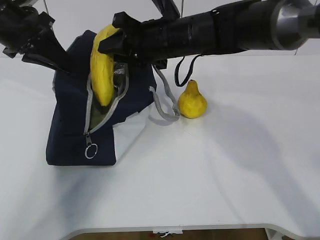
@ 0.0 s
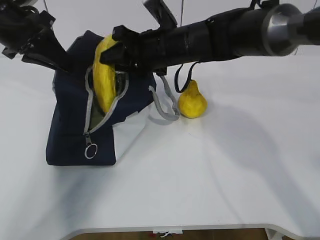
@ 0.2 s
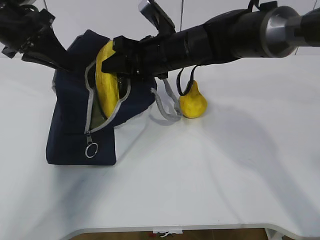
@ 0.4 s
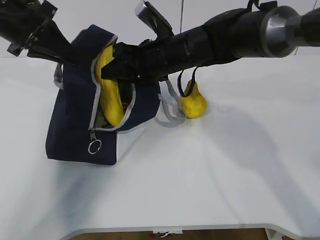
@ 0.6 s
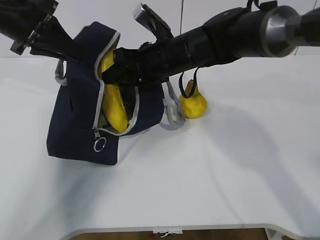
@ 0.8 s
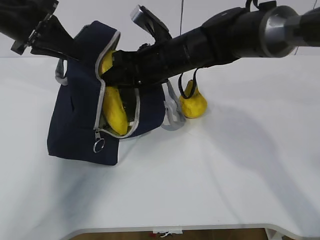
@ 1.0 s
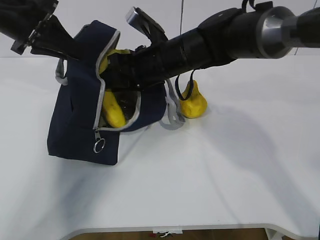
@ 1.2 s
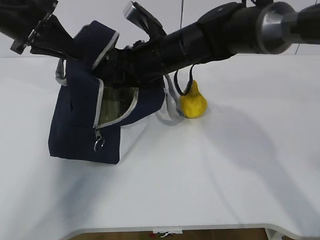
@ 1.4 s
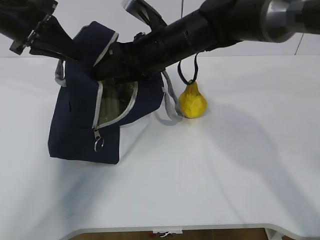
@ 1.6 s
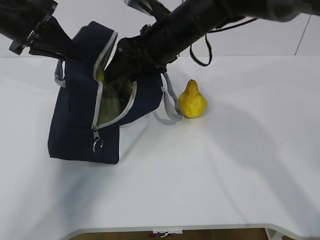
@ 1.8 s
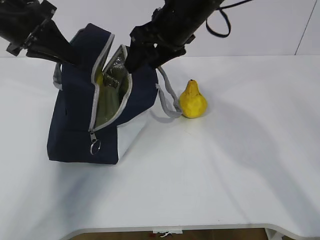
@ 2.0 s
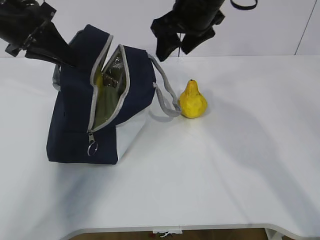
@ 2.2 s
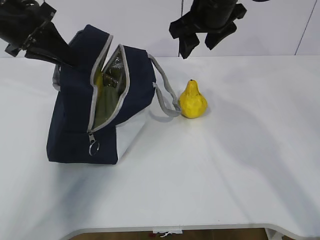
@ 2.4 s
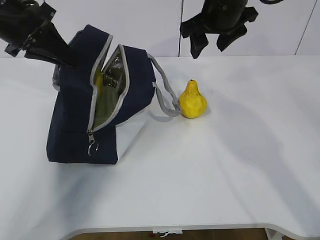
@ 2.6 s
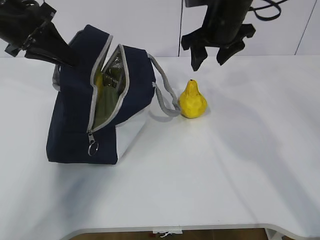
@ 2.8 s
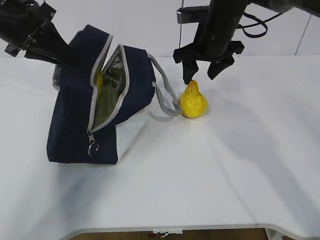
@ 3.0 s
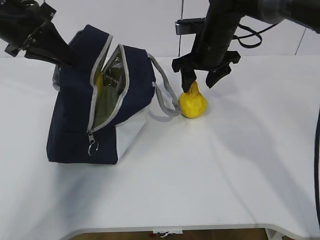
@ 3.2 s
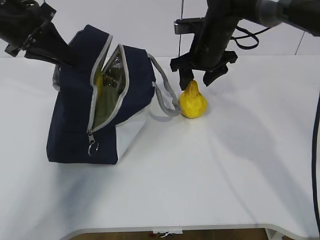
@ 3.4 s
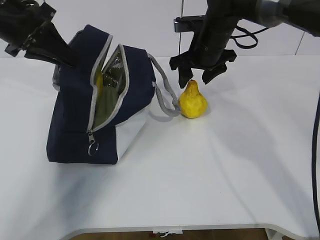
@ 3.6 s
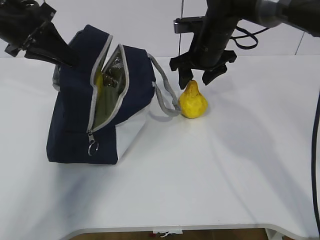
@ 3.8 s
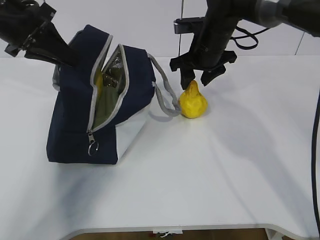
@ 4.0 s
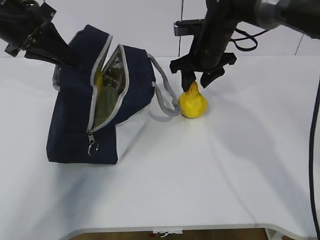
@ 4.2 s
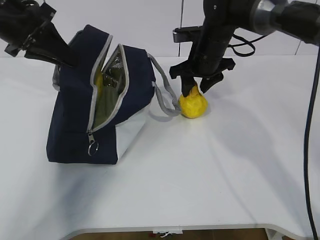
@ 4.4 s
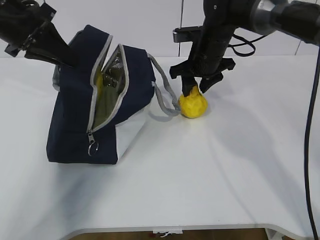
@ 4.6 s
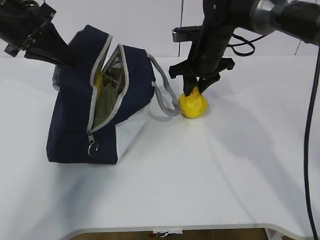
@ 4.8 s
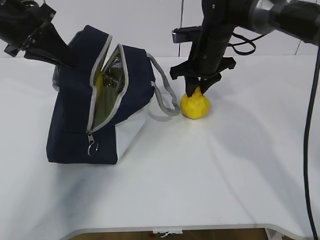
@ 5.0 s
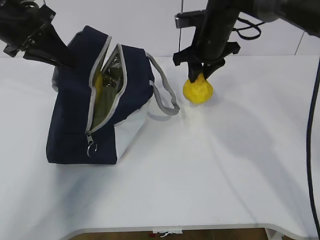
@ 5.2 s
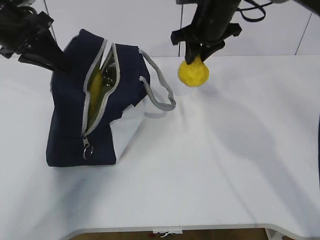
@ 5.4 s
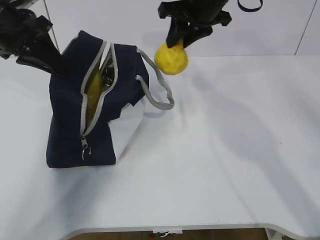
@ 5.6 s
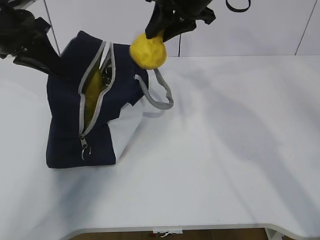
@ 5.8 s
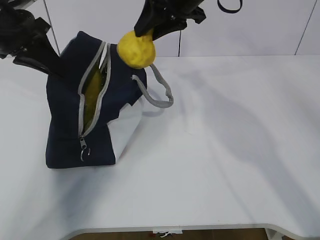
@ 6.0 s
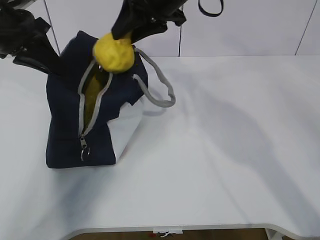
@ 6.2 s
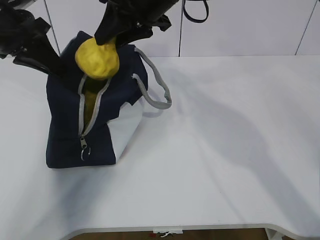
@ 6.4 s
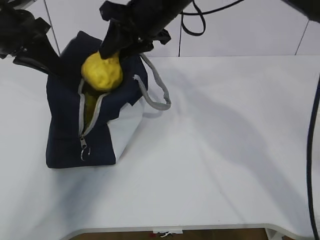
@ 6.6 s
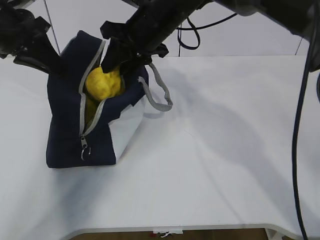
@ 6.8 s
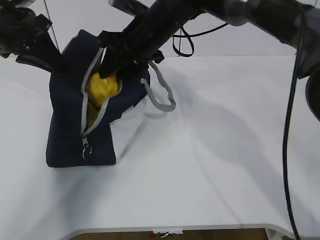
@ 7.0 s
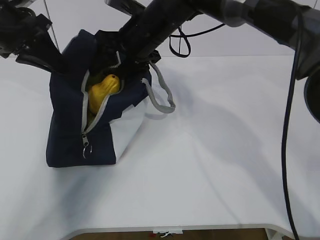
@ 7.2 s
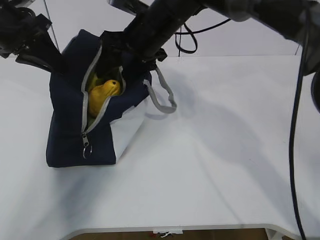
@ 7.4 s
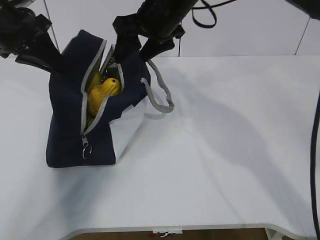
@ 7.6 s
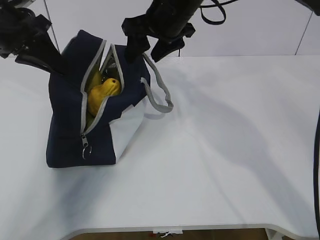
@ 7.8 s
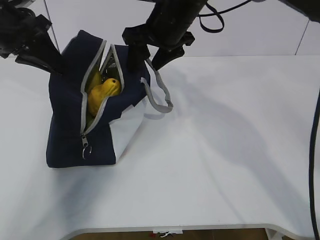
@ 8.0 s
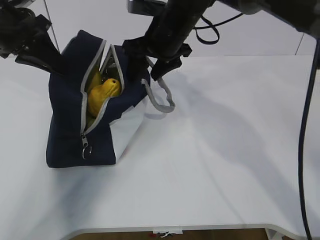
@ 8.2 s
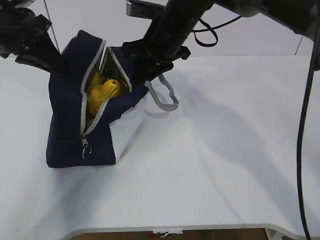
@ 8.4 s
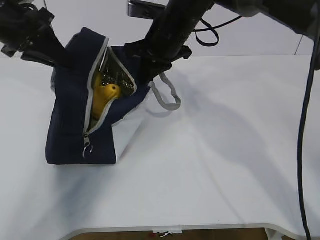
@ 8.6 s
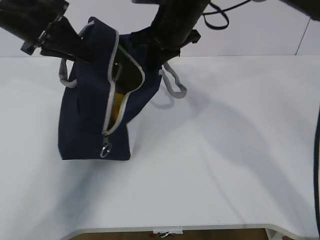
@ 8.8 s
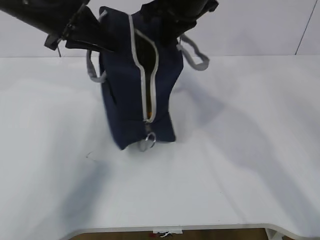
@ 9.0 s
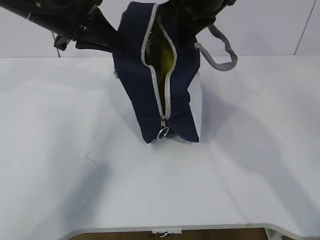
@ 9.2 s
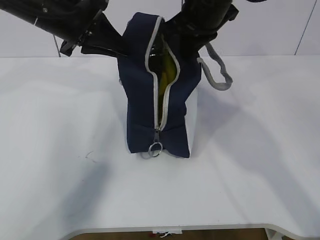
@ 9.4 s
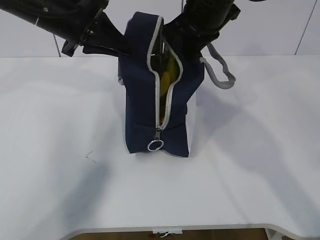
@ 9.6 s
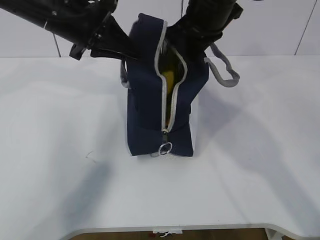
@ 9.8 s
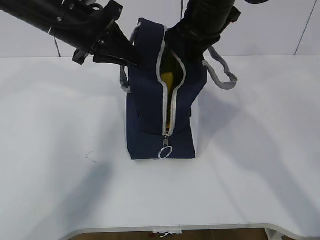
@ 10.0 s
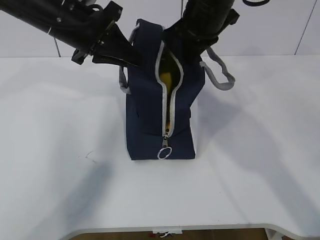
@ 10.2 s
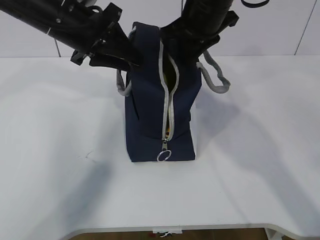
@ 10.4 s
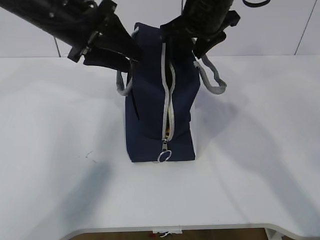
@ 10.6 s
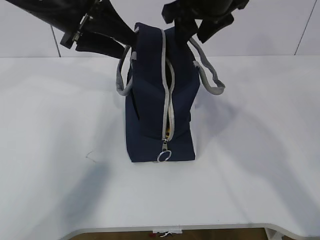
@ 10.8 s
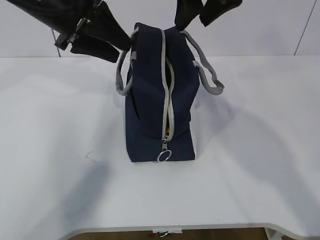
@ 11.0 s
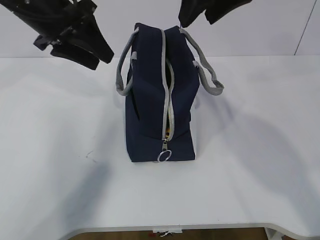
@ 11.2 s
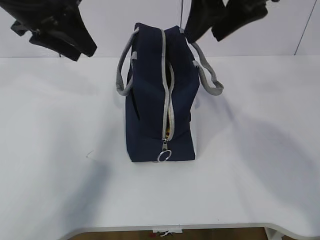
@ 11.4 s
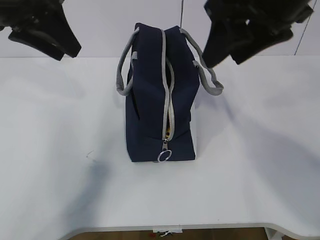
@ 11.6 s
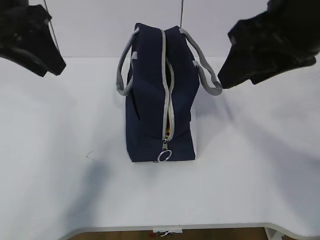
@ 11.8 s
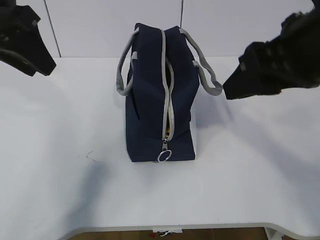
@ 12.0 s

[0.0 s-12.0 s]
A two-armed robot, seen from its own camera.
Step, 2.2 to 3.0 s: Grab the lunch bag with your right hand.
Step, 3.2 to 4.8 s: Move the lunch bag to the right.
0.0 to 1.6 s: The right gripper opens up.
1.6 to 3.0 s: The right gripper heads to the right and forward, covering some 10 cm.
3.0 to 4.4 s: The grippers move only a little.
4.4 to 6.0 s: The right gripper moves upward, about 15 cm.
6.0 to 7.6 s: The right gripper opens.
7.6 to 9.0 s: The right gripper shifts by about 5 cm, and closes up. Meanwhile the left gripper moves to the right, roughly 5 cm.
9.0 to 10.4 s: The grippers make only small movements.
10.4 to 12.0 s: The right gripper travels backward by approximately 20 cm, and opens. The left gripper heads to the left, backward and upward, covering approximately 10 cm.

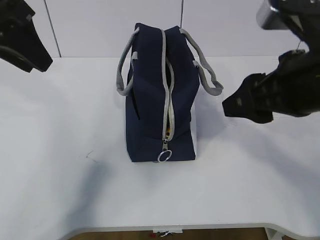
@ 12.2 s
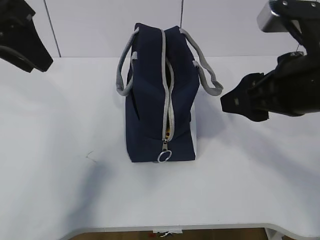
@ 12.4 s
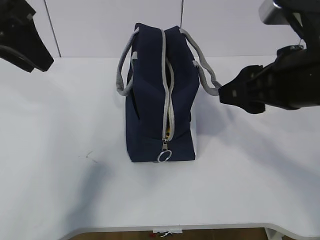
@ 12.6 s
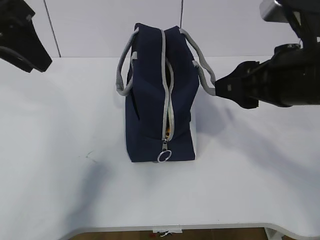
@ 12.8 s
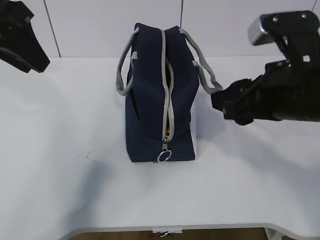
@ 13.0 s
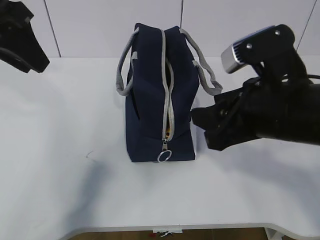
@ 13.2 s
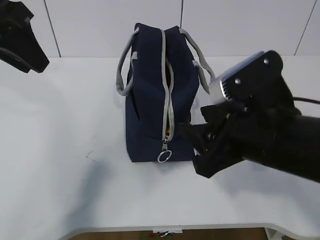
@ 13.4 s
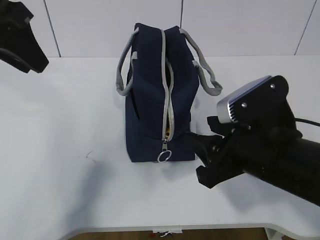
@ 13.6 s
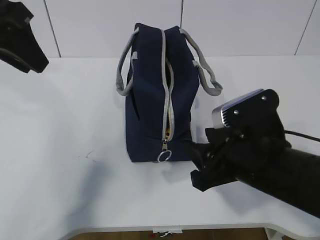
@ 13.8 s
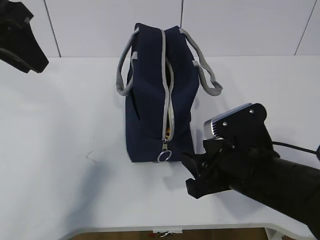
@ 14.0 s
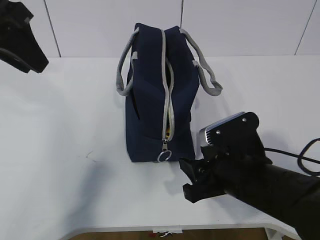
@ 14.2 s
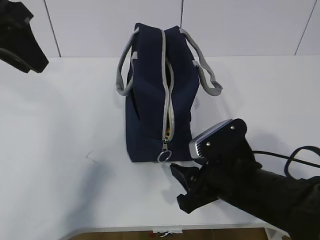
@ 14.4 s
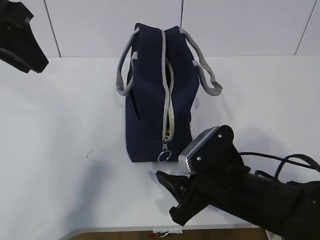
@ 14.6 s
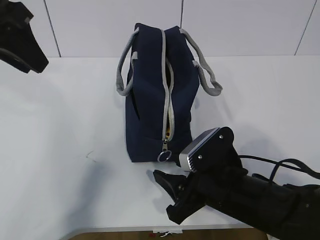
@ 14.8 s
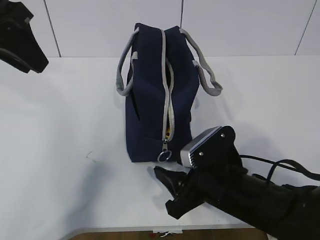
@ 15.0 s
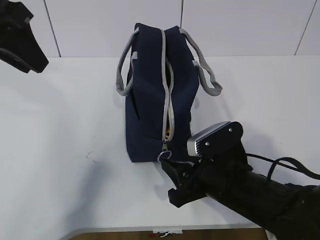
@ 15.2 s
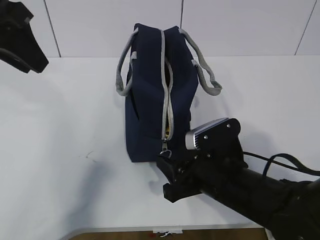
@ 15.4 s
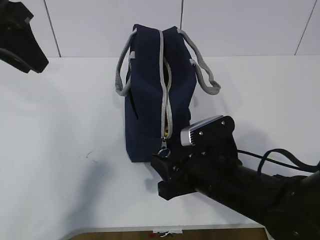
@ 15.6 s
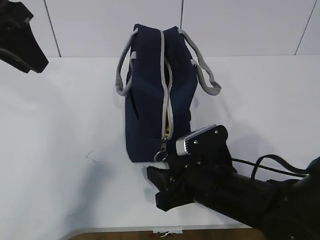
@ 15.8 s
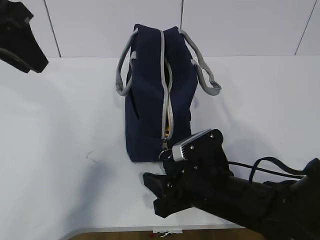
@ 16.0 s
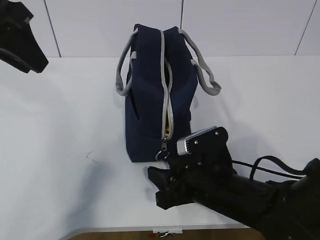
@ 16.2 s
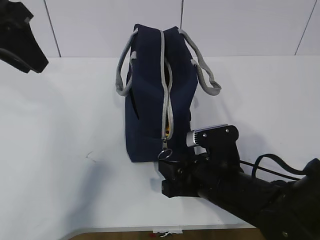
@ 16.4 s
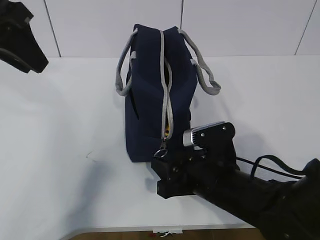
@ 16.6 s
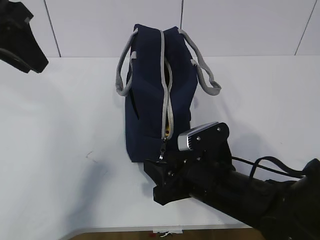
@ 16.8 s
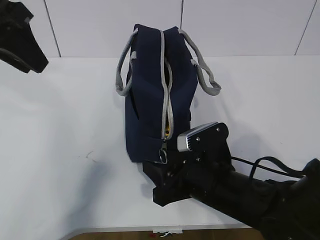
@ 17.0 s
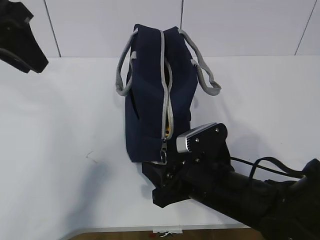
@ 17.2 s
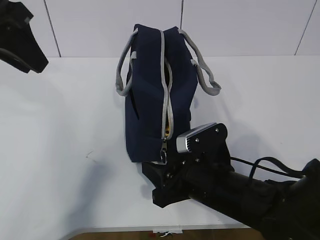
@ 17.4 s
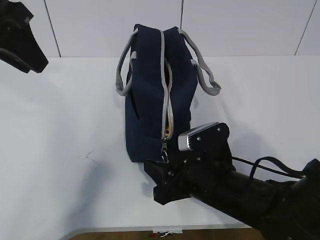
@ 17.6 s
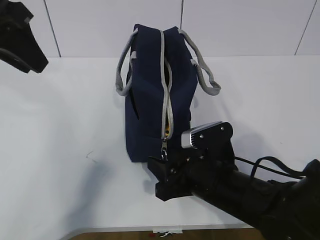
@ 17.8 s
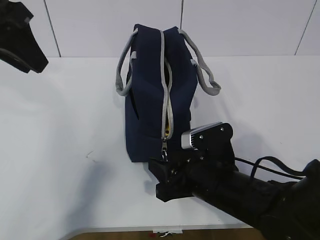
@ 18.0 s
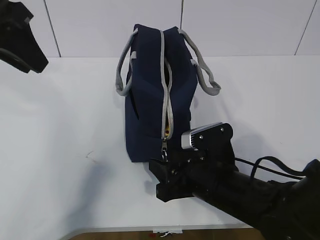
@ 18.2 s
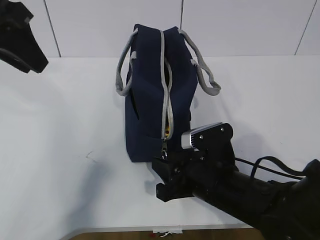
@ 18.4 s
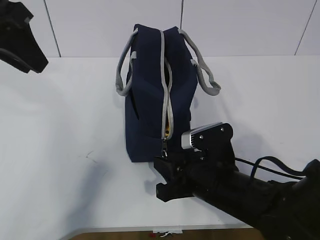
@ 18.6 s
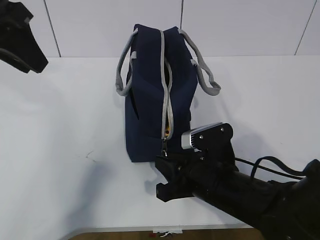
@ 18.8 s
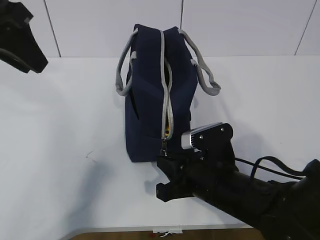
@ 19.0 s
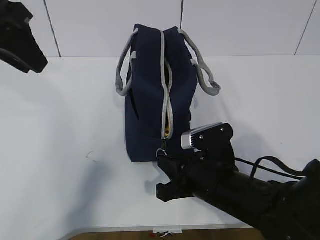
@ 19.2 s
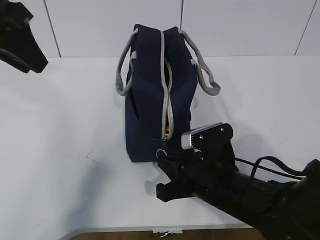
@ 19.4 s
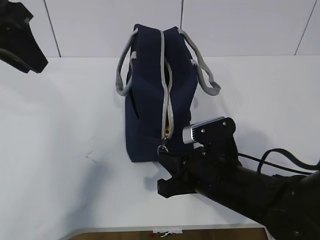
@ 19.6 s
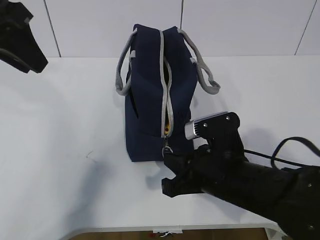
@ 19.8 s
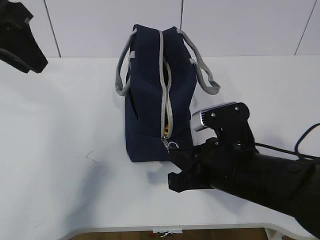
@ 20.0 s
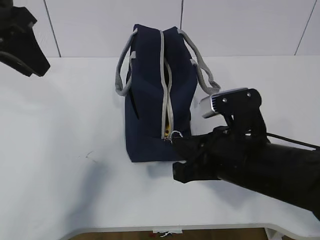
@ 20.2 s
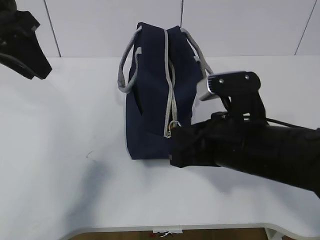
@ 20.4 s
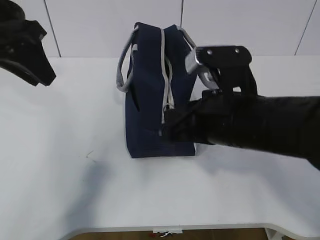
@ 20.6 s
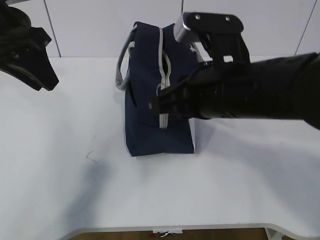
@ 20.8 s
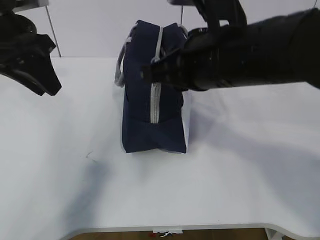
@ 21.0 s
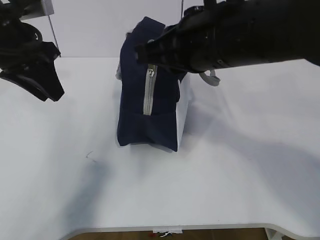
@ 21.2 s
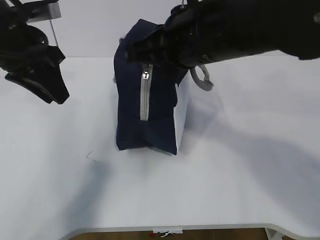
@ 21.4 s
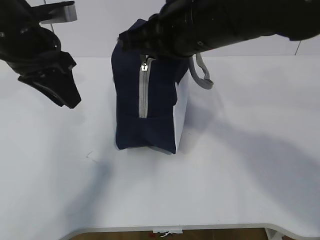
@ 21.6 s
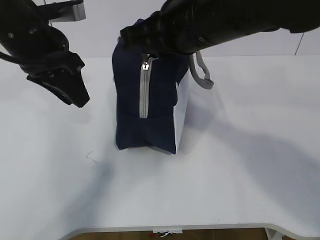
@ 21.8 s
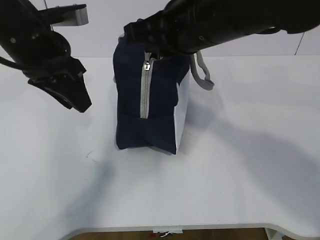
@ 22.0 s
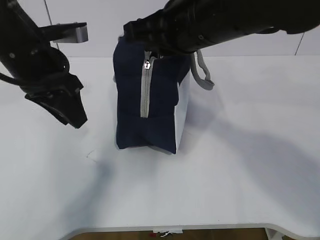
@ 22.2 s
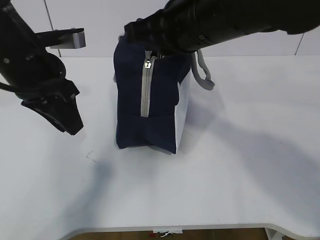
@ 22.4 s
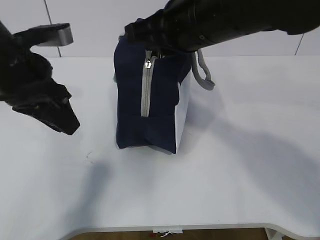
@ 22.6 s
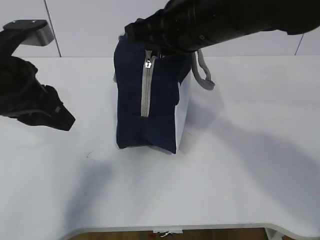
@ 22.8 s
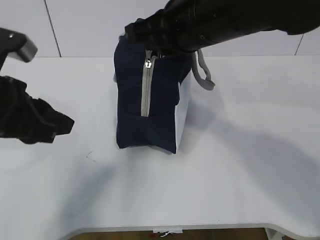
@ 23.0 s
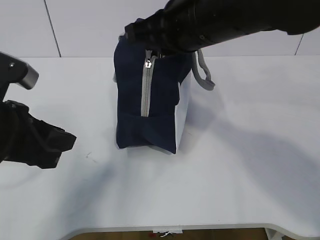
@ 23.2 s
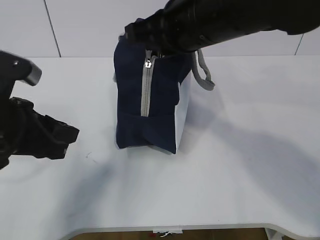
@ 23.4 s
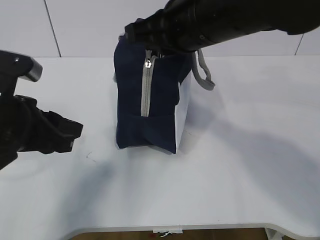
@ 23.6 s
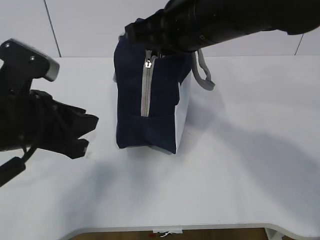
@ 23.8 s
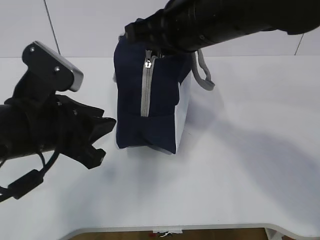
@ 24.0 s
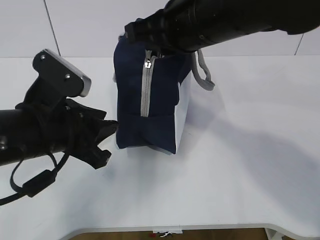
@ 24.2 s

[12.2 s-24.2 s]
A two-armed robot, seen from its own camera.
Step, 20.6 to 23.2 s: Pull the zipper with your right hand.
12.2 to 13.8 s: The right gripper shifts approximately 10 cm downward.
13.8 to 15.2 s: The right gripper moves downward, about 5 cm.
15.2 to 18.2 s: There are only small adjustments of the grippers.
18.2 to 19.8 s: The right gripper closes.
19.8 to 21.2 s: The right gripper travels upward by about 20 cm, while the left gripper shifts approximately 5 cm downward.
21.2 to 22.6 s: The left gripper ends up some 5 cm from where it was.
22.6 to 24.2 s: The left gripper shifts roughly 10 cm downward and backward.
